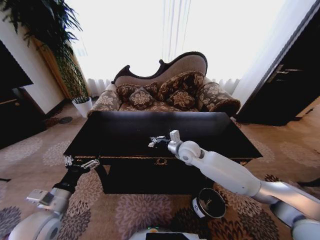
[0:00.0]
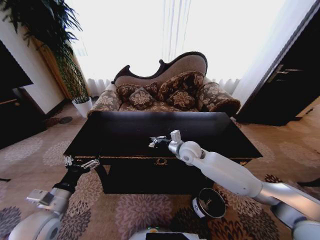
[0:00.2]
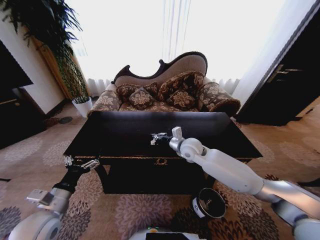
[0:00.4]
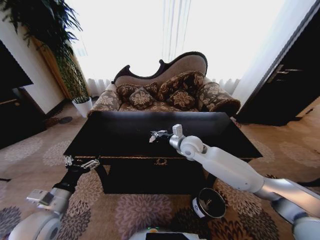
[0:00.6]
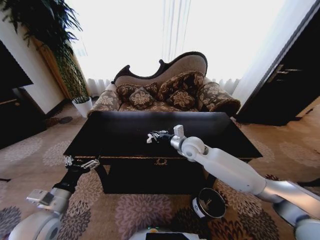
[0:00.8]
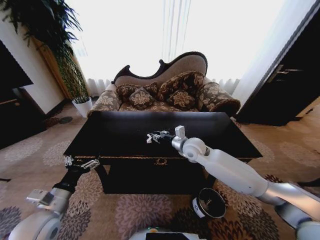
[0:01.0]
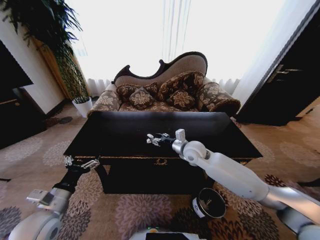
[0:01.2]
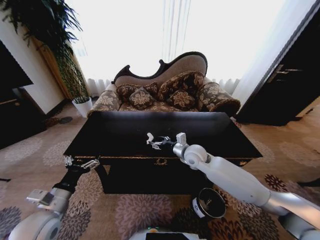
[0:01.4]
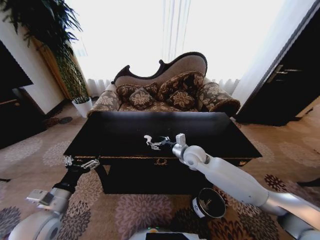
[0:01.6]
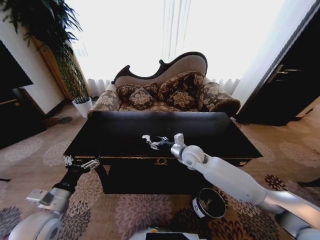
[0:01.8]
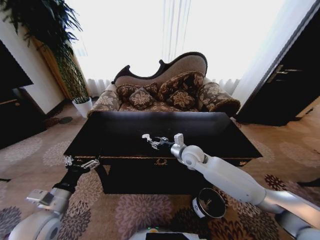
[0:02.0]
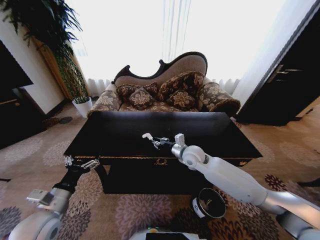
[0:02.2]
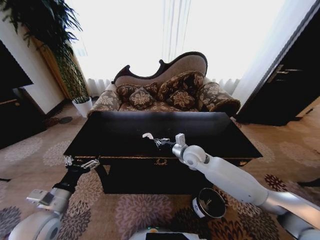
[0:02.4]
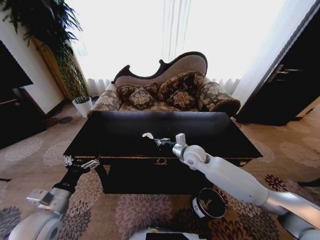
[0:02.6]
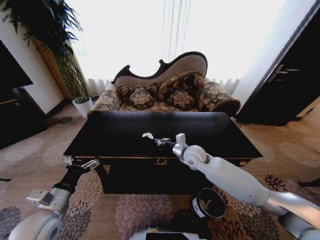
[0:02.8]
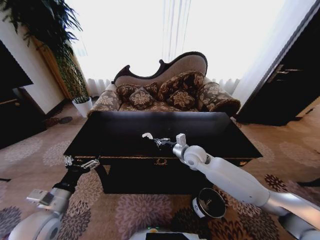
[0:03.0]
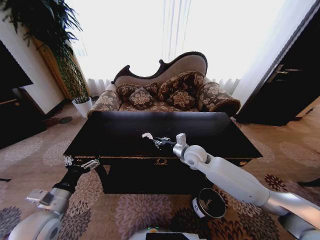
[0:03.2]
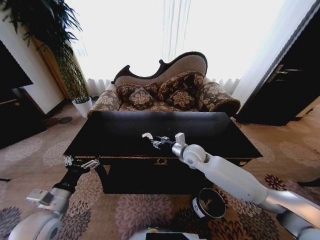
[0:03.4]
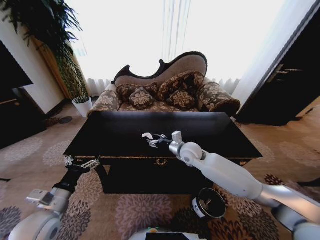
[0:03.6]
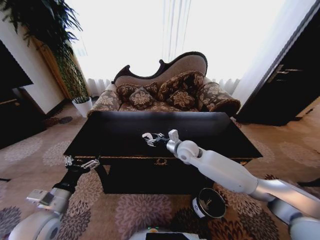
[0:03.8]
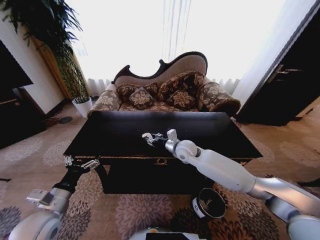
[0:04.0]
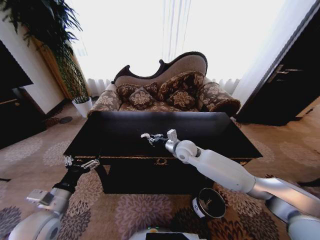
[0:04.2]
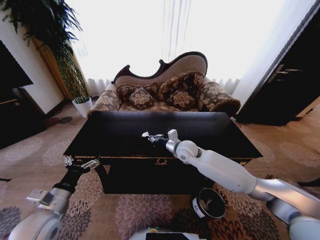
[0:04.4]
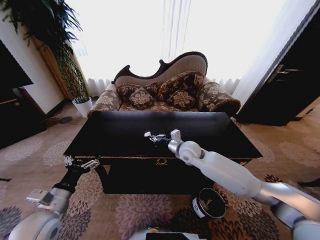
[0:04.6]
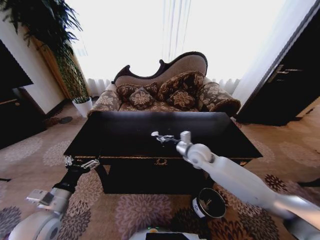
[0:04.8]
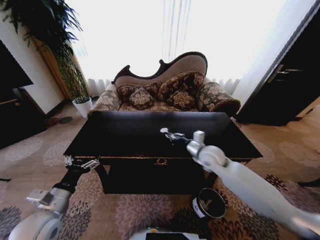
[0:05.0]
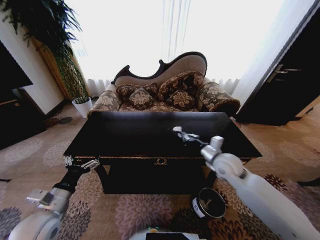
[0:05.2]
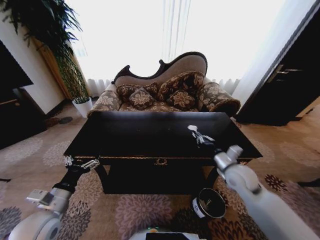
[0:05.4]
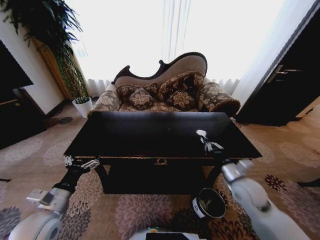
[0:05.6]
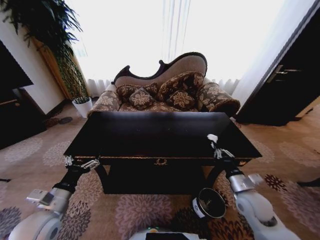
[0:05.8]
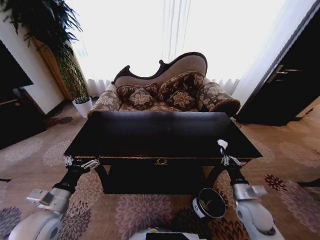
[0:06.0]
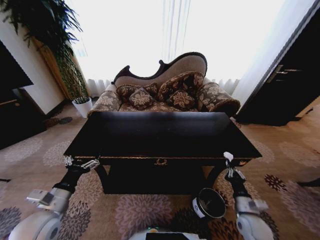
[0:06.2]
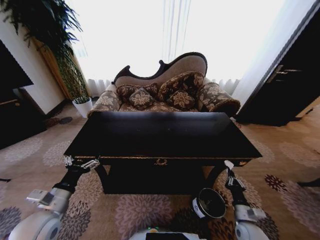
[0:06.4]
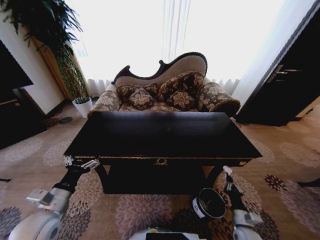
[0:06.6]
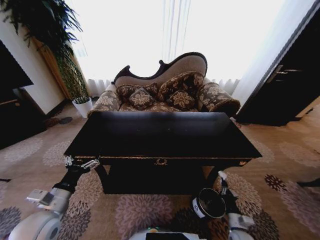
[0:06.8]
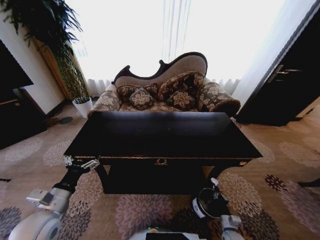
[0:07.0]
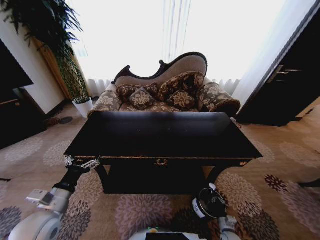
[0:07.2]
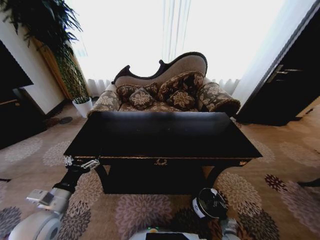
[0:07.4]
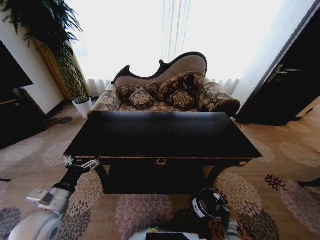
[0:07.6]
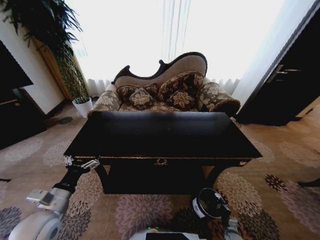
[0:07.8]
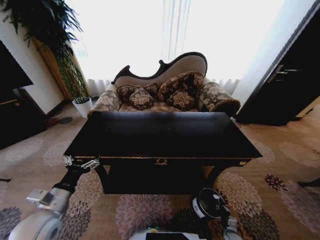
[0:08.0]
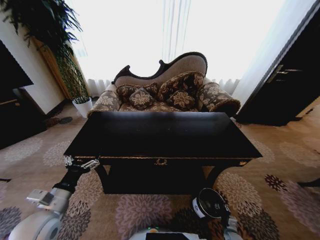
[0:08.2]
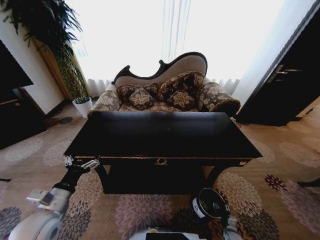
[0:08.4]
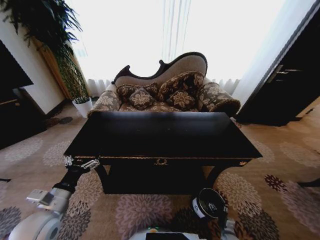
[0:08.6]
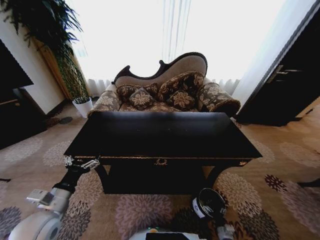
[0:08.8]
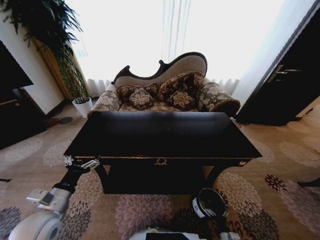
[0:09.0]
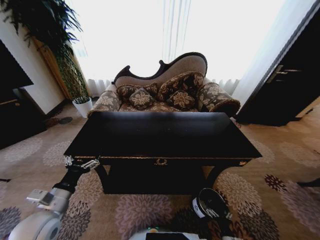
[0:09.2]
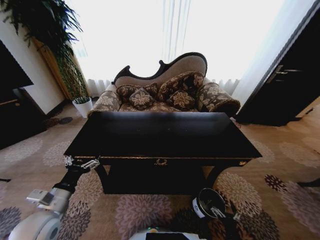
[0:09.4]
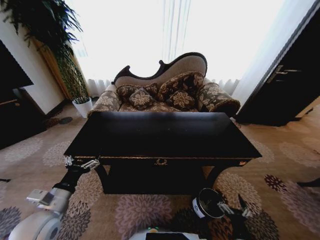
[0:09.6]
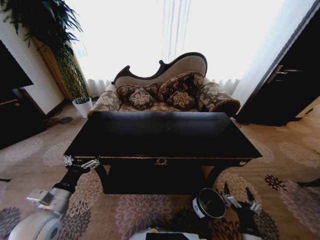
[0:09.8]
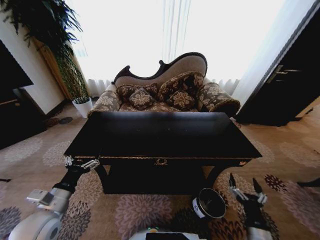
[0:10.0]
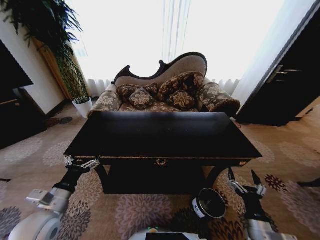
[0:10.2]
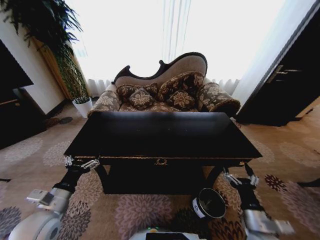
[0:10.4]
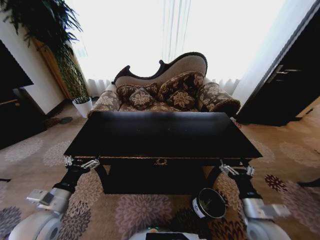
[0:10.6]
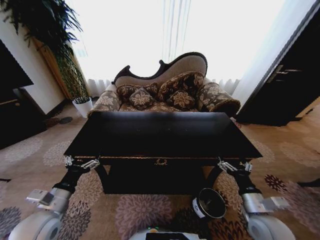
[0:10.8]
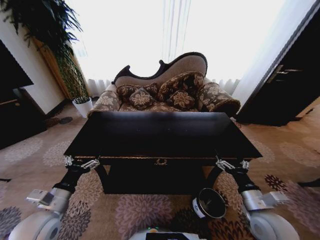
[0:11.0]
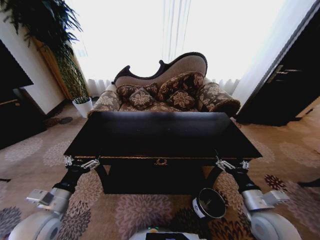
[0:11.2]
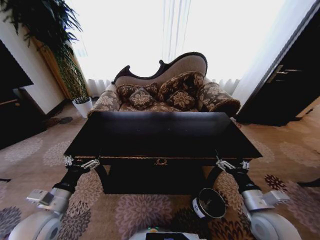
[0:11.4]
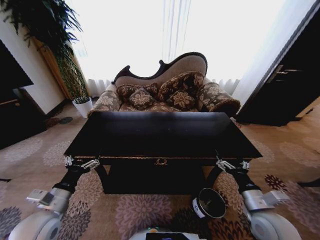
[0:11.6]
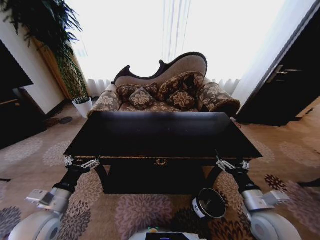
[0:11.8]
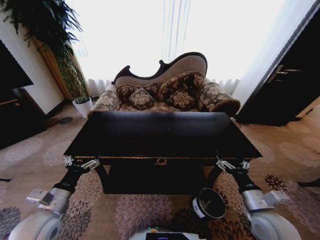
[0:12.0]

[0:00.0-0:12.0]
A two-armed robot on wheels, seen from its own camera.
Task of the whole recording: Move to the front of the table and place the trash on the table into the trash bin.
0:00.0 to 0:01.6: The right gripper opens its fingers.
0:01.6 to 0:03.0: The right gripper closes.
0:03.0 to 0:04.4: The right gripper opens, then closes once more.
0:04.4 to 0:06.0: The right gripper goes about 35 cm to the right, backward and downward.
0:06.0 to 0:07.6: The right gripper goes approximately 30 cm downward.
0:09.0 to 0:10.4: The right gripper heads upward, covering some 30 cm.
0:10.4 to 0:12.0: The right gripper is displaced upward by some 5 cm.
